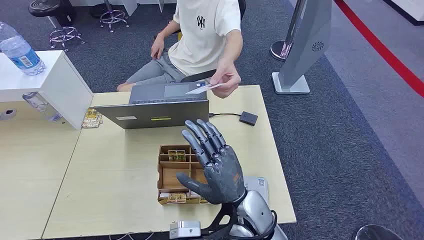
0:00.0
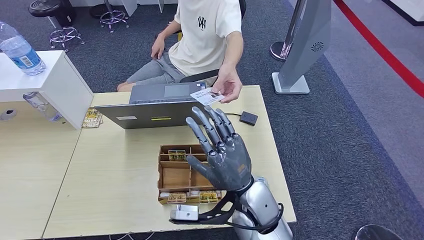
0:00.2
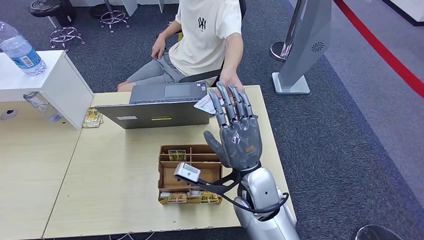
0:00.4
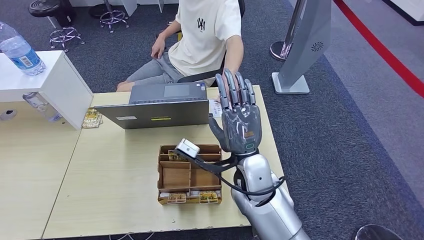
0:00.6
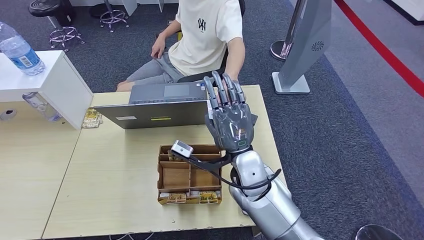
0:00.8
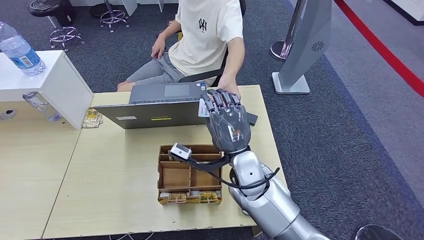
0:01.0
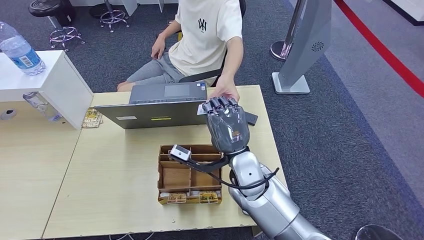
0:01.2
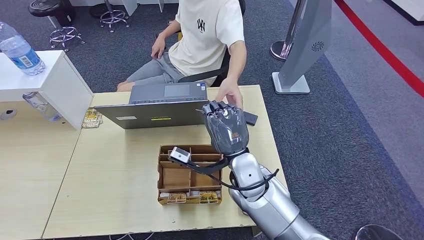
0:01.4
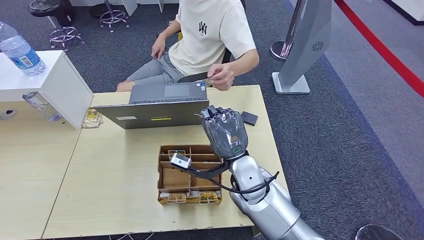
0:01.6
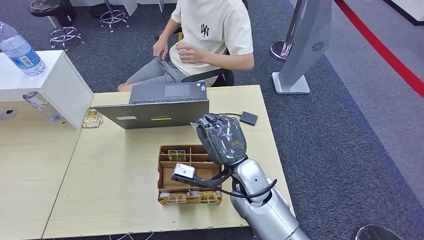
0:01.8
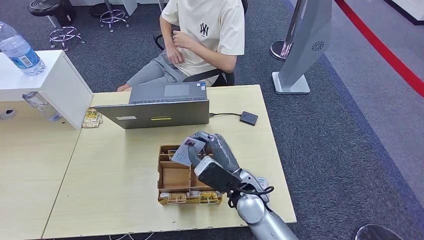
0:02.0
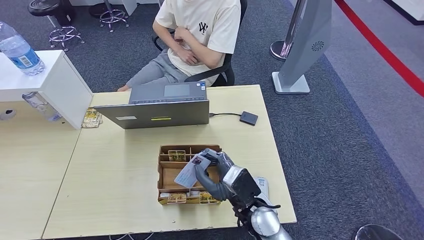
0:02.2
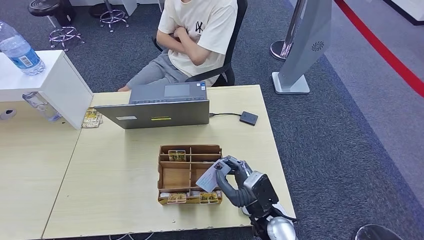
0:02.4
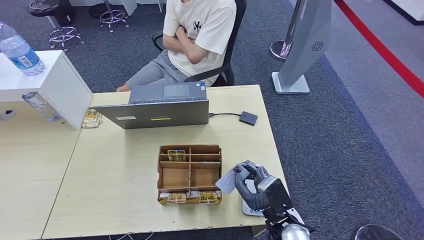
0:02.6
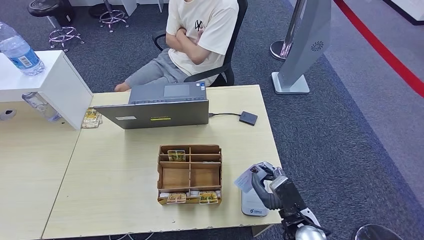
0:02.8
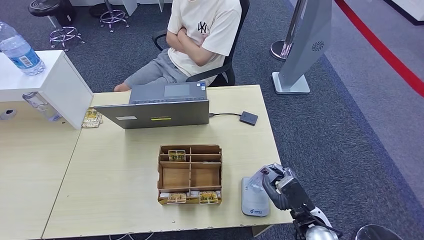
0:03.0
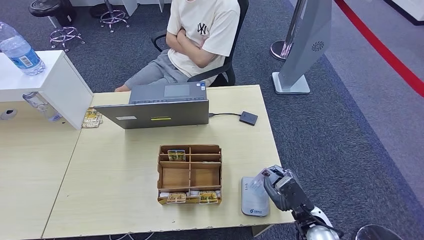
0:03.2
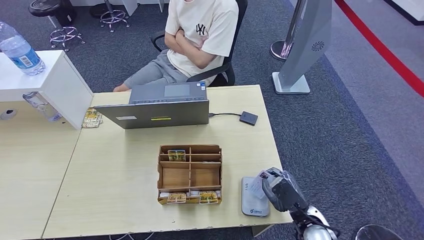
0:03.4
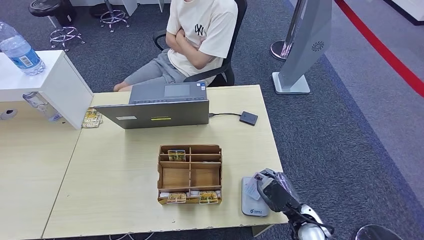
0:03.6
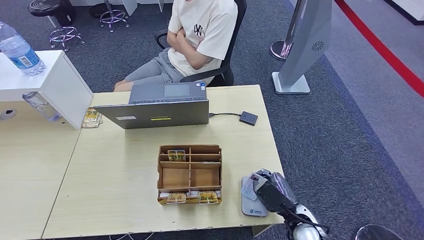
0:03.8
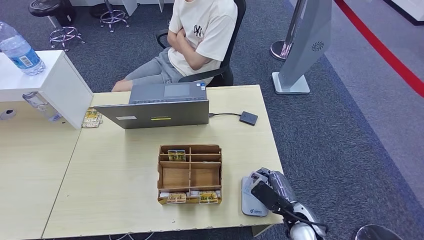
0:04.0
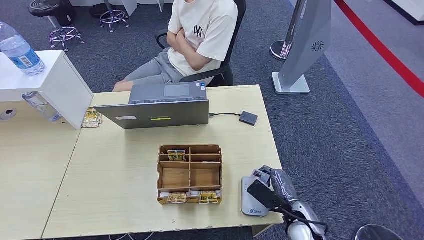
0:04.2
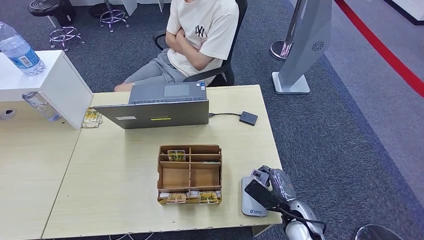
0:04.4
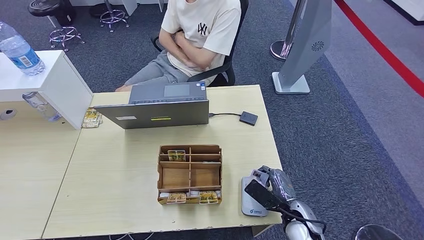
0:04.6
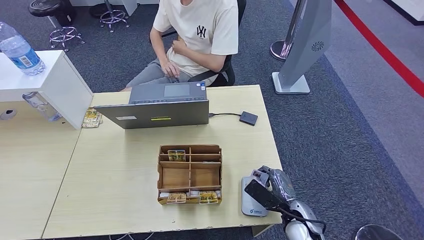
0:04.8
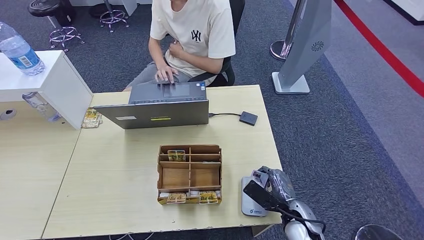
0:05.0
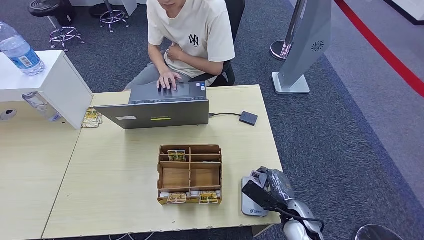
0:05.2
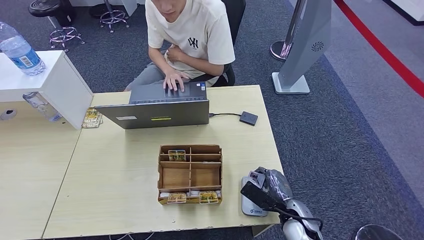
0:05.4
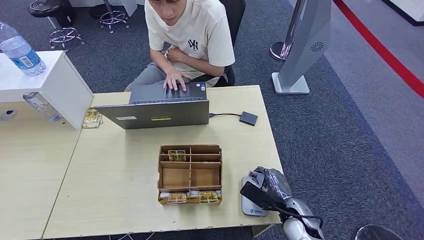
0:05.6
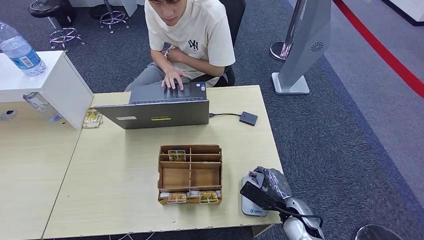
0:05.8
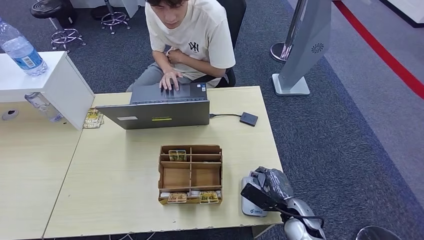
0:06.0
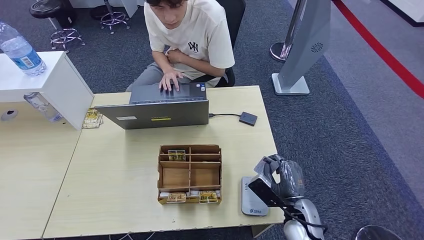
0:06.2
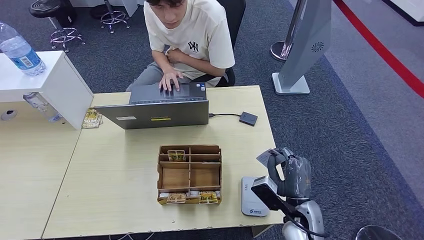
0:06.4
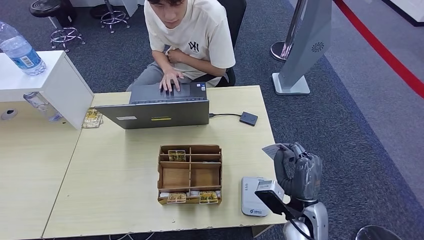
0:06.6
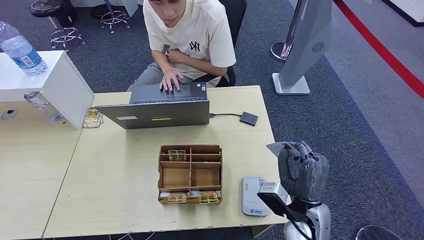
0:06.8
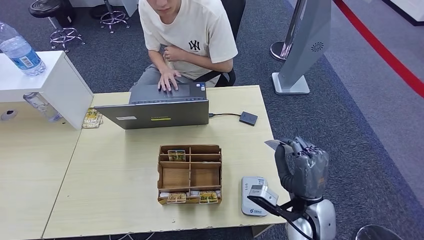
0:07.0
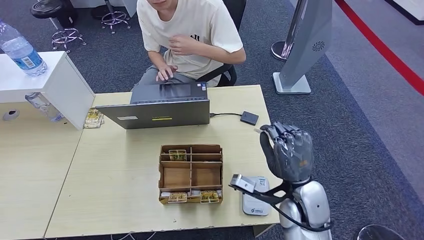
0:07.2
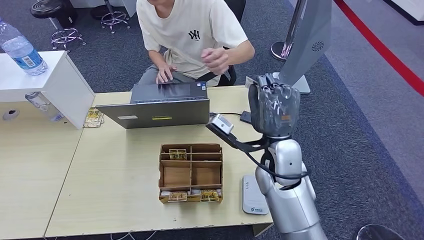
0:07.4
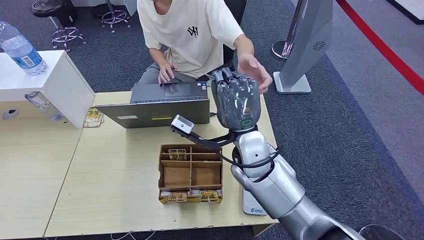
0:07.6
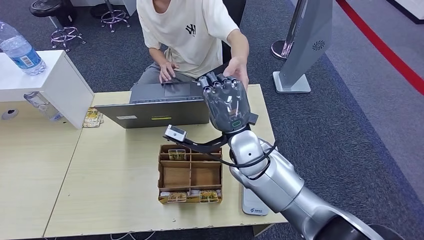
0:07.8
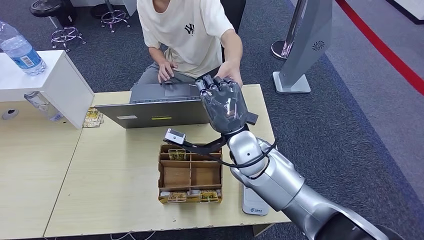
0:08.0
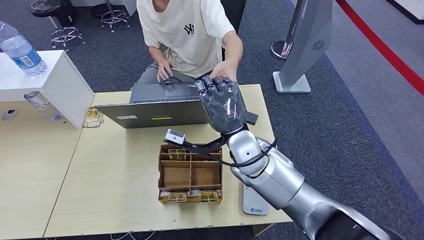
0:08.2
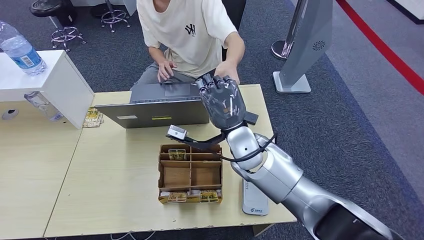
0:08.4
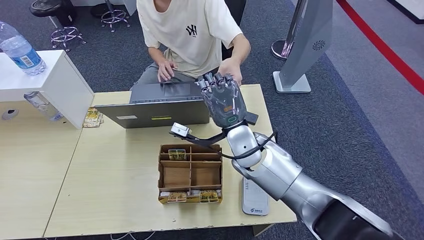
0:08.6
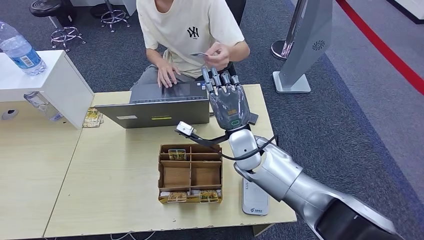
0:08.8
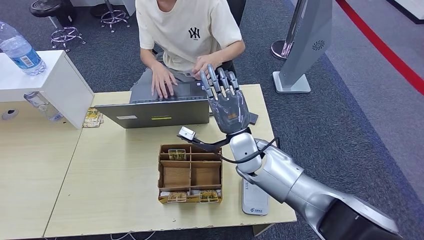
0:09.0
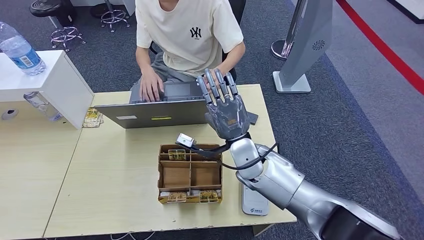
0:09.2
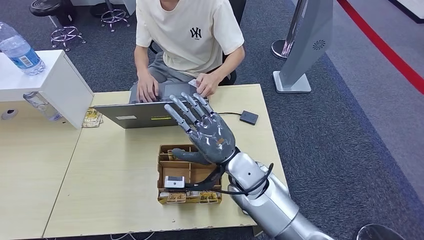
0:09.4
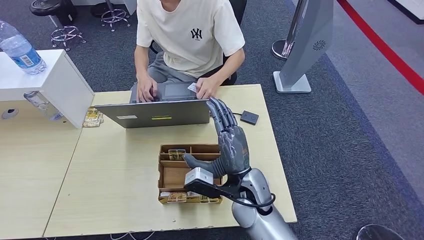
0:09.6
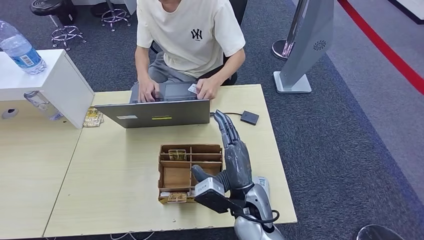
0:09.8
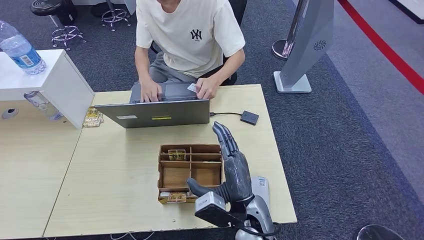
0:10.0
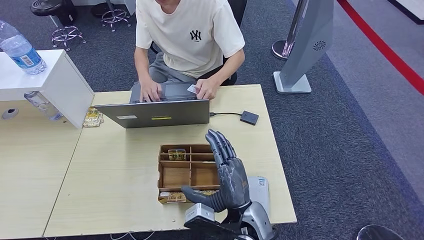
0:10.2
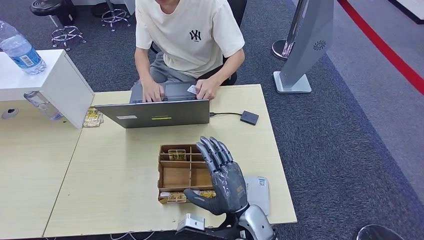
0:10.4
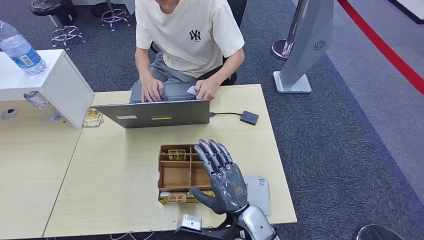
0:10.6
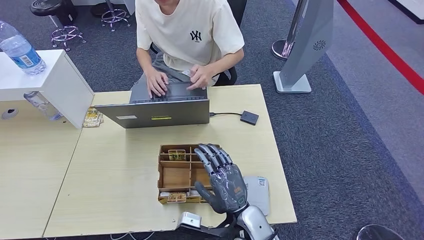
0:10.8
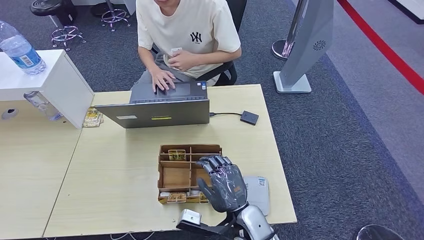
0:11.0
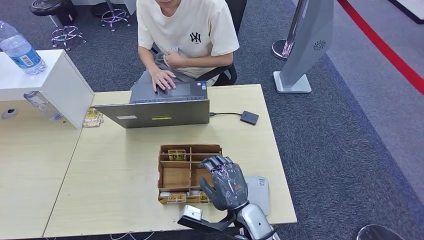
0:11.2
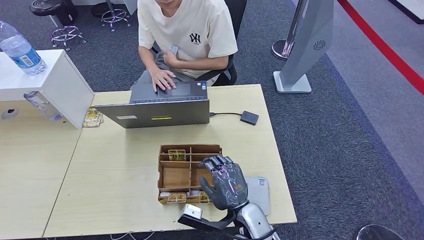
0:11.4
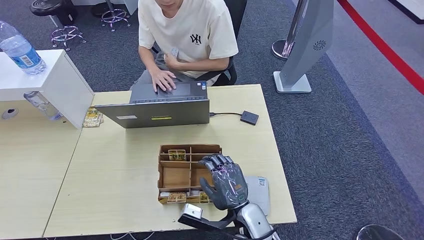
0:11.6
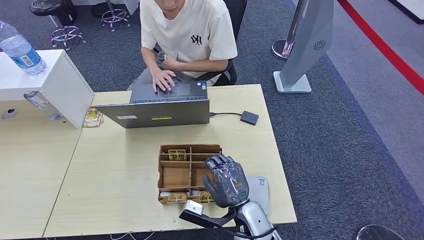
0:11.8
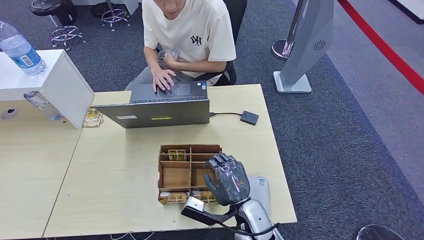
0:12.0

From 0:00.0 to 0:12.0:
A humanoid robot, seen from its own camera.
Step, from 0:00.0 to 0:01.8: Take the ID card from the person's hand.
Step, from 0:02.2 to 0:05.8: Place the ID card on the card reader.
Step, from 0:06.0 to 0:09.8: Hand the ID card to the person.
From 0:01.6 to 0:03.0: The right hand travels to the right, downward and backward by approximately 25 cm.
From 0:04.4 to 0:06.0: The hands make only small movements.
From 0:06.0 to 0:07.6: The right hand goes approximately 30 cm upward, to the left and forward.
From 0:07.6 to 0:09.0: The right hand travels downward by some 5 cm.
From 0:09.0 to 0:10.4: The right hand heads backward and downward, covering some 20 cm.
From 0:10.4 to 0:12.0: There are only small adjustments of the hands.

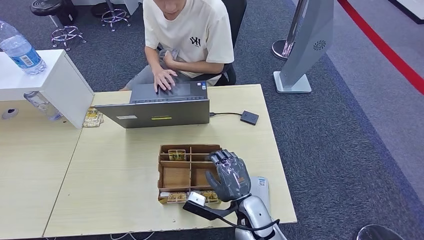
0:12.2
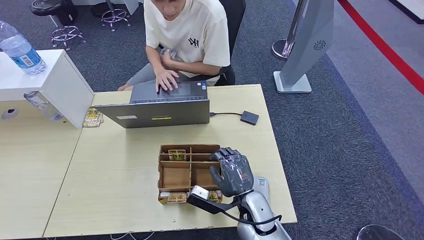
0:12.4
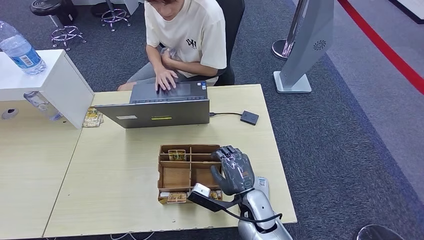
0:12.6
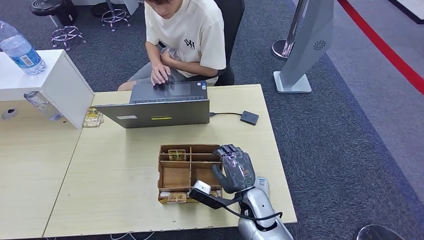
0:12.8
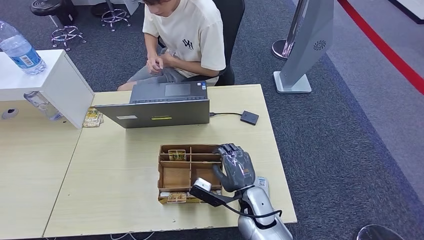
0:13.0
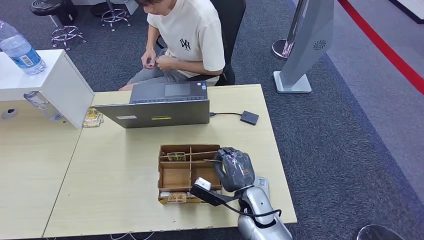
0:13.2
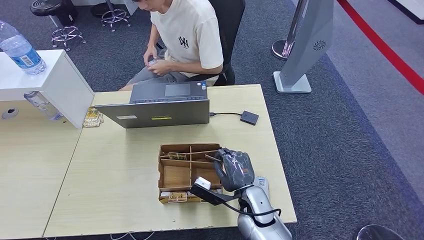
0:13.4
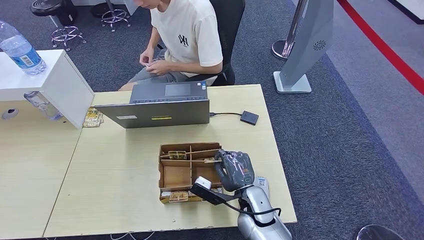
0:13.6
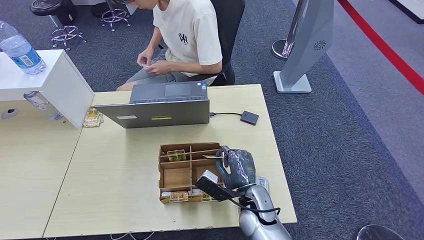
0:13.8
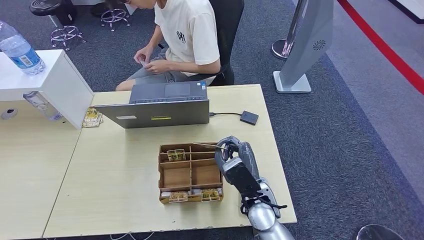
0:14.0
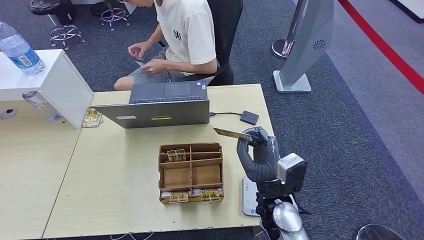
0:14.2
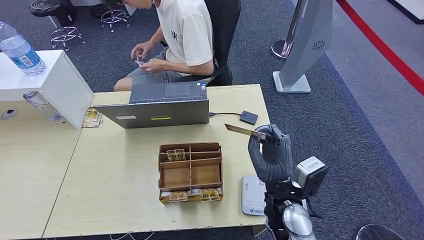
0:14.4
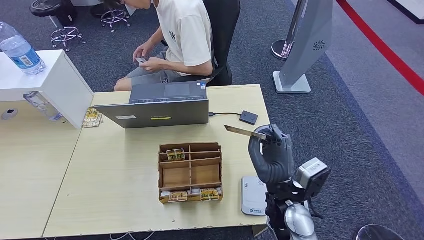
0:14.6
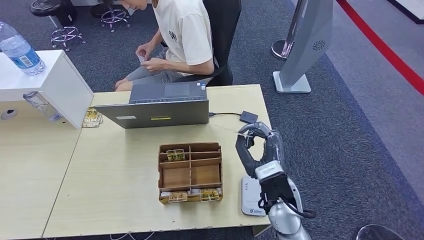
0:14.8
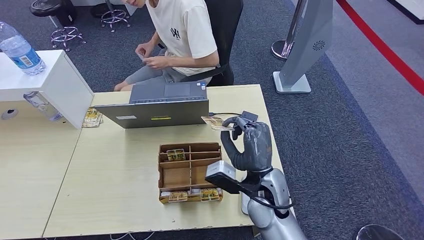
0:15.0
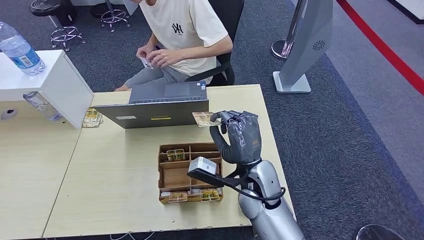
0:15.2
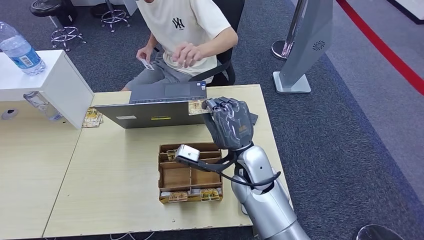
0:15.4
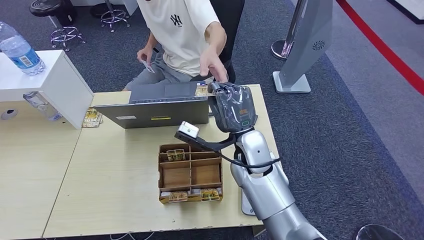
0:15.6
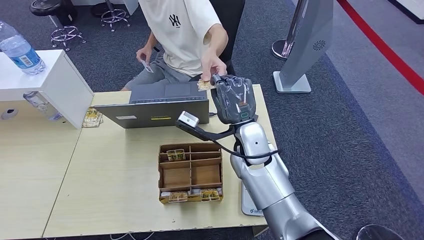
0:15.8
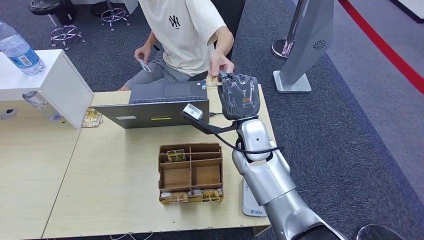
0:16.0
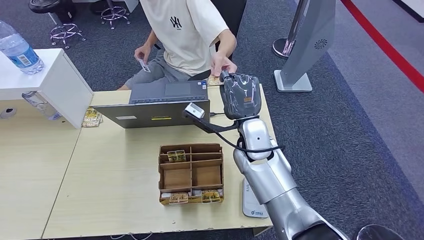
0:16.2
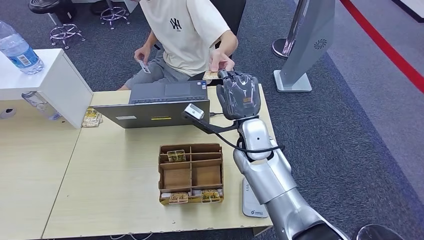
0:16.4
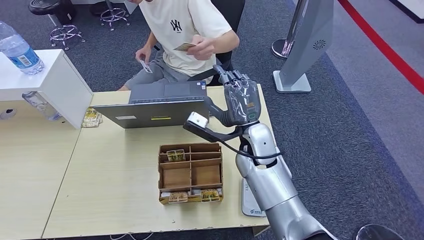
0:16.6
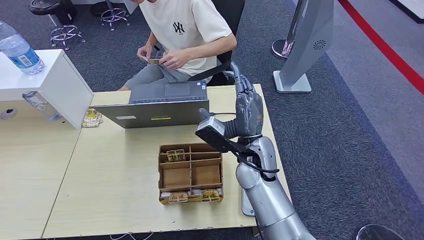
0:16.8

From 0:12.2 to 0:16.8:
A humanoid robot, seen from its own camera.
Step, from 0:12.2 to 0:14.2: Pick up the room key from the key card box.
From 0:12.2 to 0:13.8: The hands move only a little.
From 0:13.8 to 0:15.2: The right hand heads upward, covering roughly 10 cm. The left hand changes place by roughly 5 cm.
From 0:15.2 to 0:16.8: The right hand goes approximately 5 cm forward.
